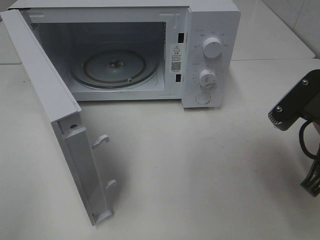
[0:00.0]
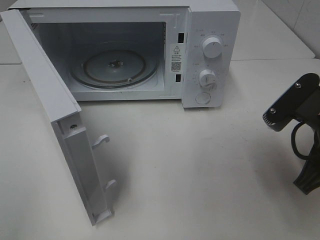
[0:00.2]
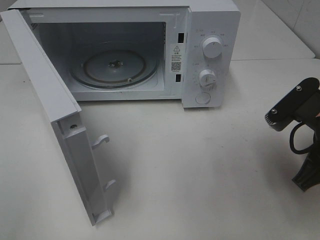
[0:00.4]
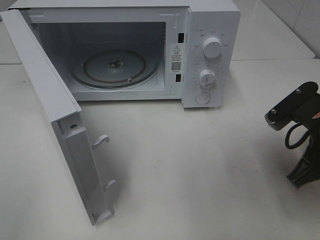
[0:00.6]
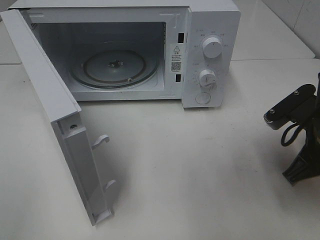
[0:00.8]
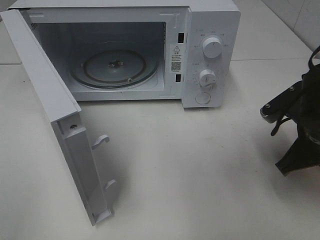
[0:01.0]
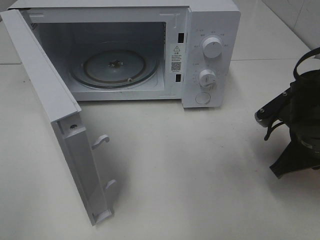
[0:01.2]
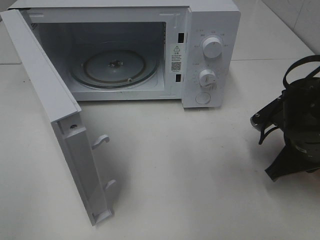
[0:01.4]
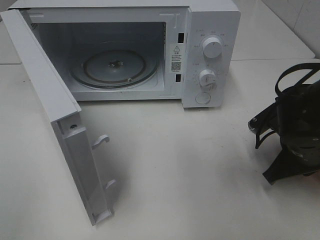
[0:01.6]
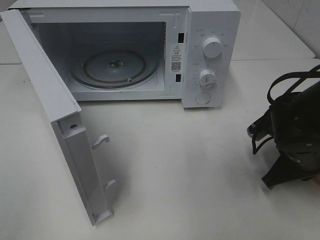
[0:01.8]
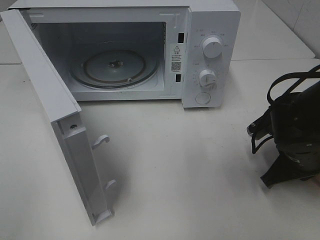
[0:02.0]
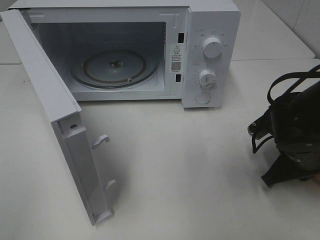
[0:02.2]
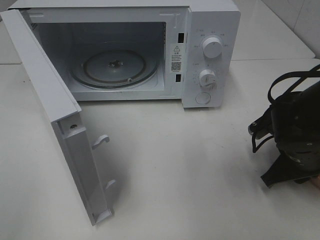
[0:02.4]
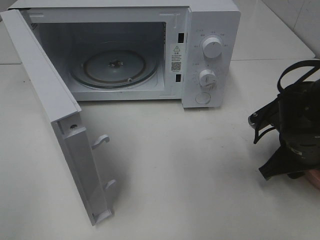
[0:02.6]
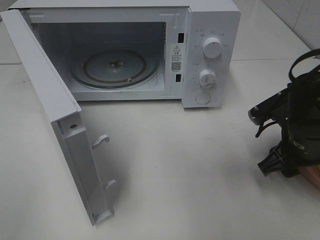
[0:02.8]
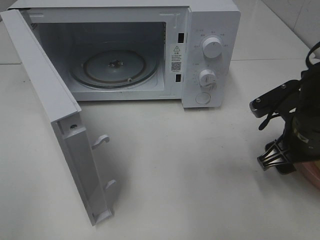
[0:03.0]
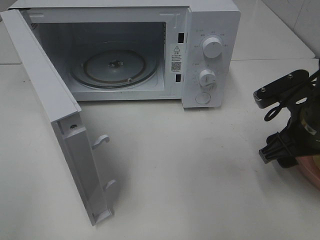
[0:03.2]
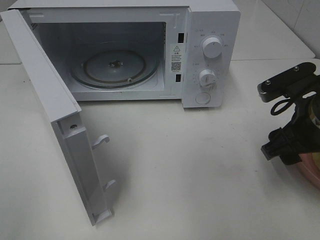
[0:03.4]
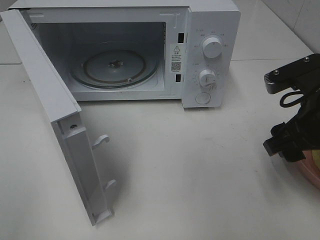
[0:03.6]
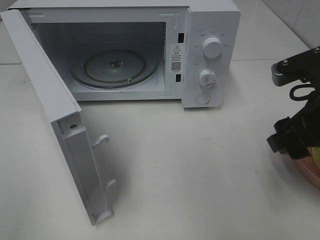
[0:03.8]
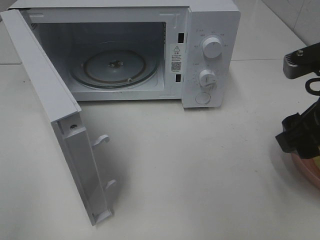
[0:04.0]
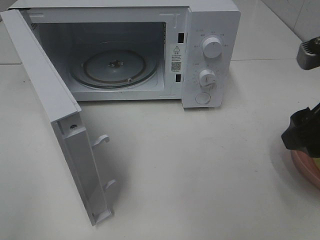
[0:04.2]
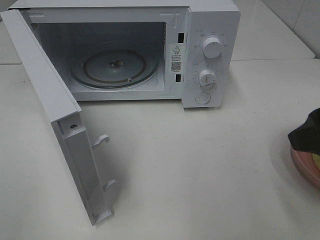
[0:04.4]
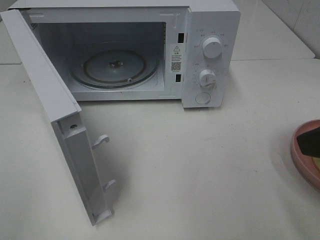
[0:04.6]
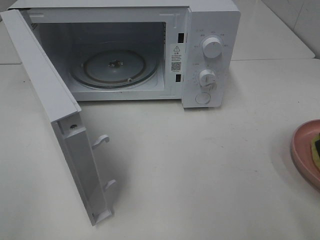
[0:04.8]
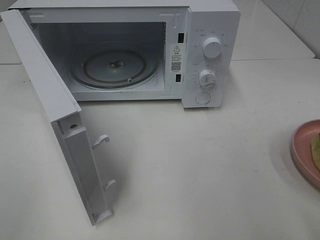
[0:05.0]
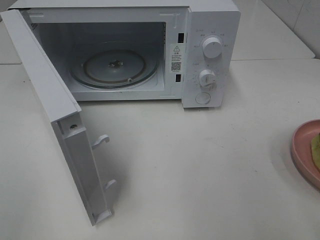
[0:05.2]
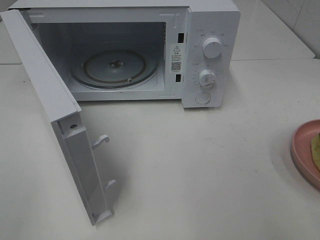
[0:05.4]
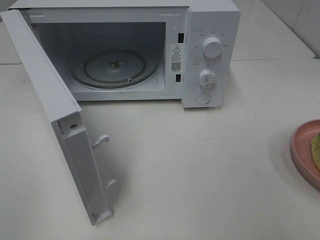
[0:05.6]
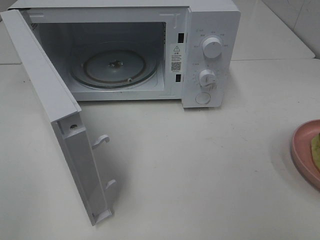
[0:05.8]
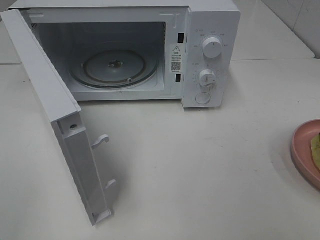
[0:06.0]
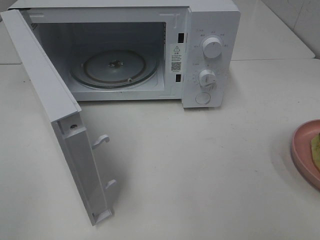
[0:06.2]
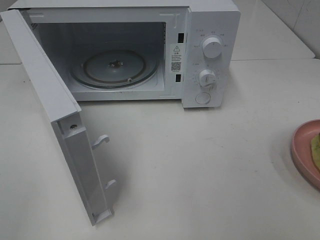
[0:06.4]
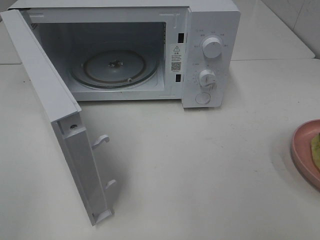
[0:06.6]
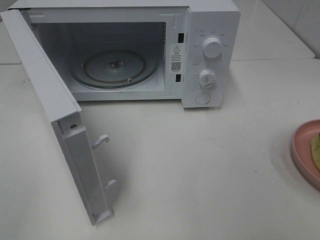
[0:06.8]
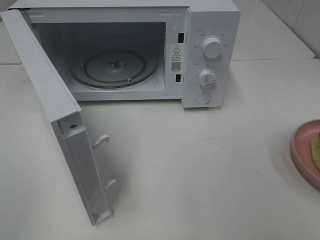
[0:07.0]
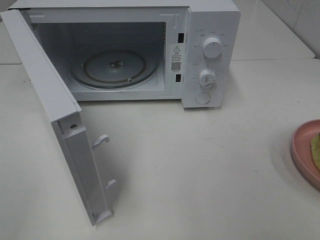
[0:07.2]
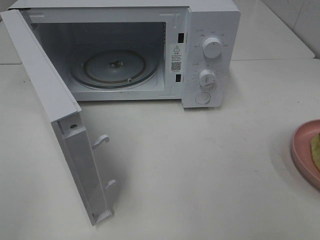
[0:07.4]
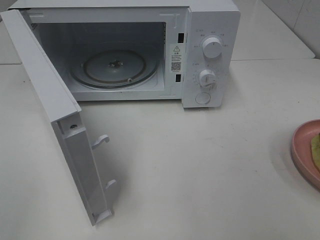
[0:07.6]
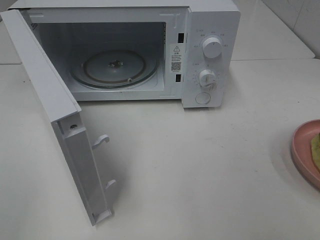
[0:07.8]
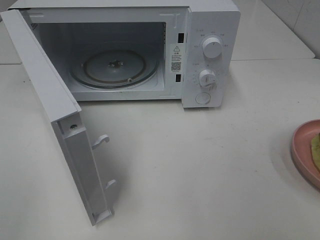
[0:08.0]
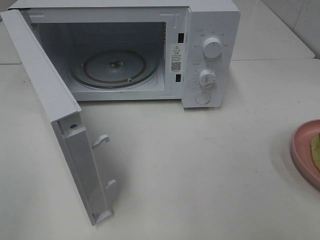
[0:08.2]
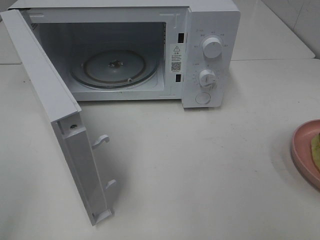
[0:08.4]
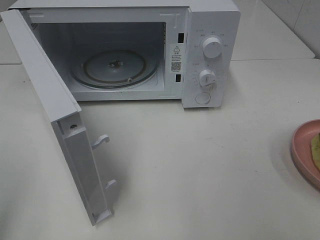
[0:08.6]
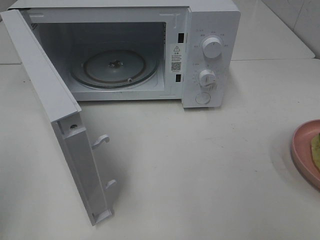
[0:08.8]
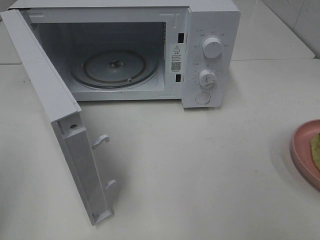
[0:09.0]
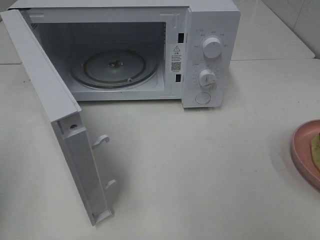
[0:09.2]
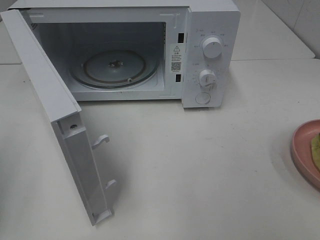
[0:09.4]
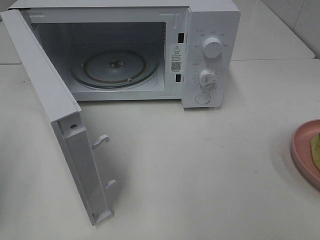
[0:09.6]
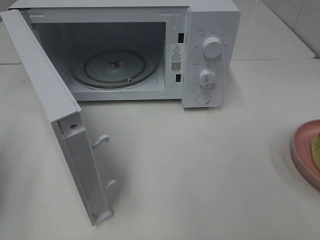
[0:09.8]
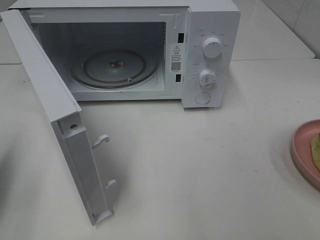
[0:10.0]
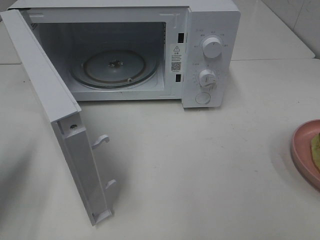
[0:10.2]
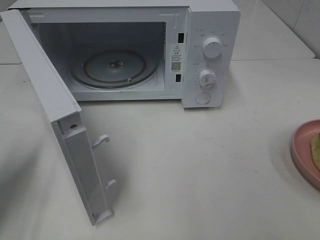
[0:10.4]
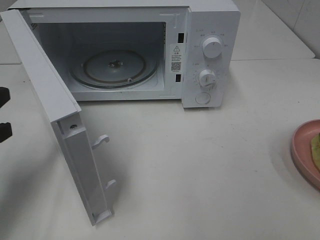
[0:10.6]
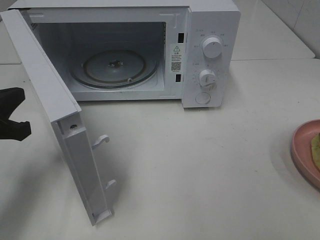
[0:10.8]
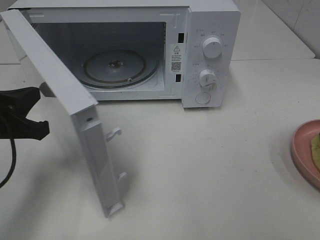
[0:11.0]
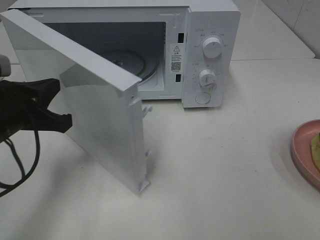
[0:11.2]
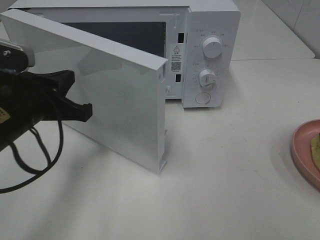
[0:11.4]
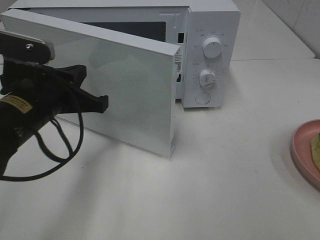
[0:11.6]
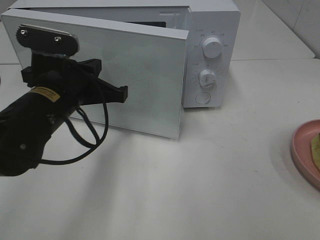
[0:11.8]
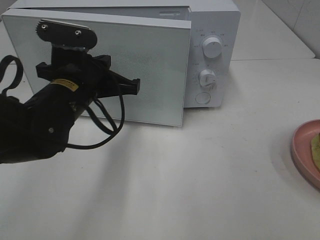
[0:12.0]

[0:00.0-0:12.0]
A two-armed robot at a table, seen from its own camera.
Task of the whole recording: Heat Sandwich.
Step, 0:00.0 to 0:03.6: Right hand: place the plate on the table.
0:00.0 to 0:01.6: The right gripper heads downward and forward, covering approximately 15 cm.
0:01.6 to 0:03.0: The right gripper opens.
0:03.0 to 0:04.4: The right gripper shifts approximately 15 cm upward and backward.
0:04.4 to 0:06.0: The right gripper heads backward and to the right, covering roughly 15 cm.
0:06.0 to 0:07.6: Neither gripper changes place.
0:09.0 to 0:10.4: The left gripper heads forward and downward, covering approximately 15 cm.
0:10.4 to 0:12.0: The left gripper heads to the right and forward, covering about 20 cm.

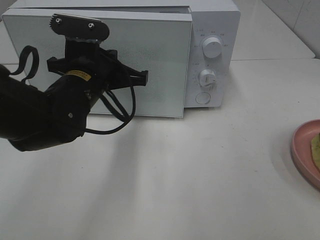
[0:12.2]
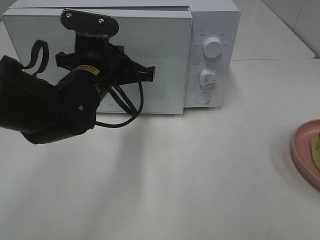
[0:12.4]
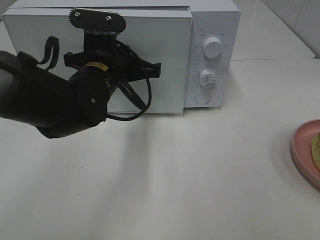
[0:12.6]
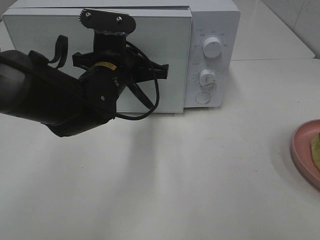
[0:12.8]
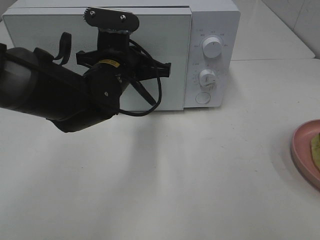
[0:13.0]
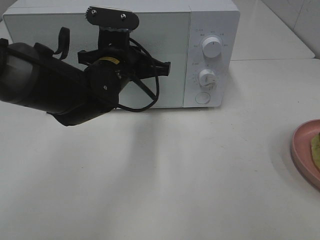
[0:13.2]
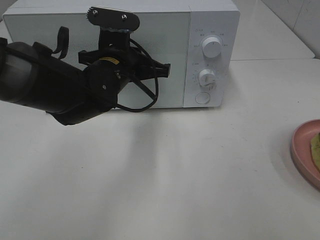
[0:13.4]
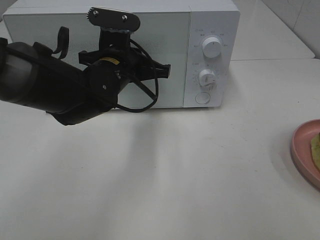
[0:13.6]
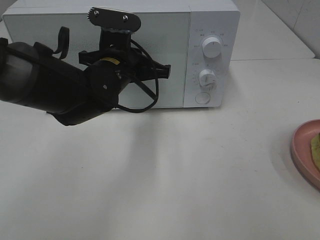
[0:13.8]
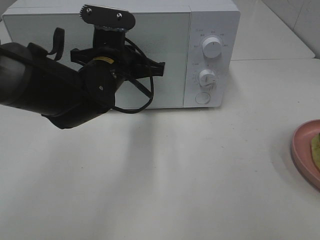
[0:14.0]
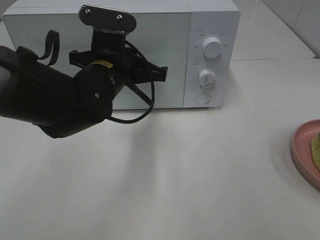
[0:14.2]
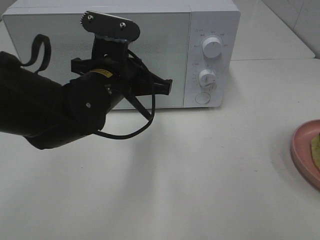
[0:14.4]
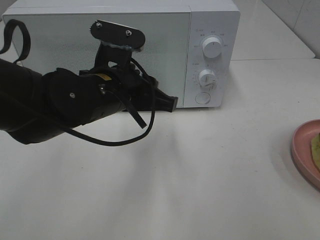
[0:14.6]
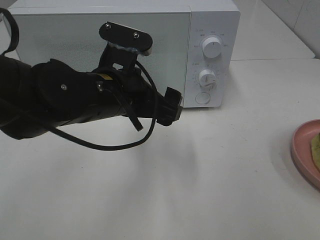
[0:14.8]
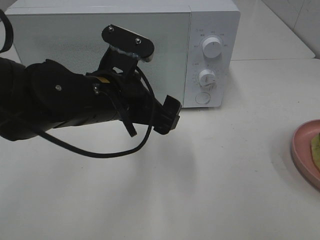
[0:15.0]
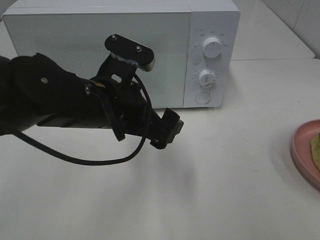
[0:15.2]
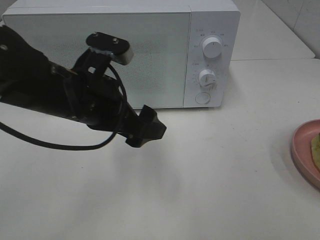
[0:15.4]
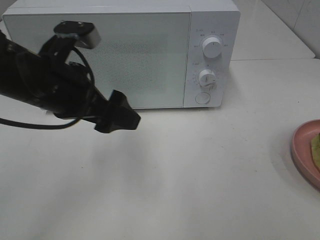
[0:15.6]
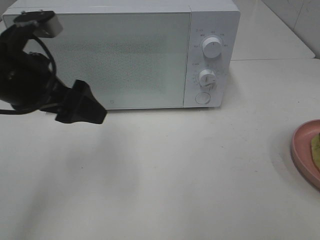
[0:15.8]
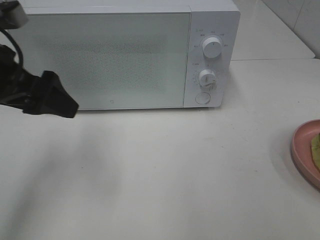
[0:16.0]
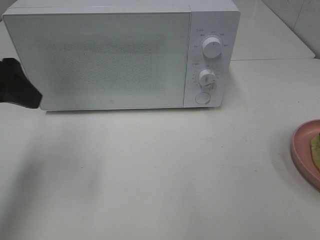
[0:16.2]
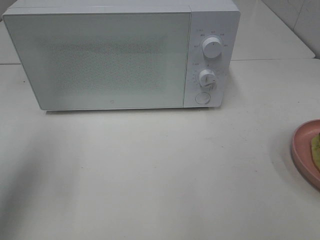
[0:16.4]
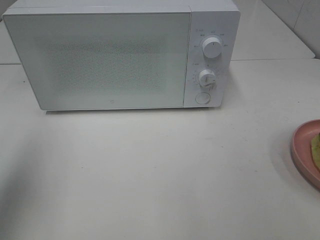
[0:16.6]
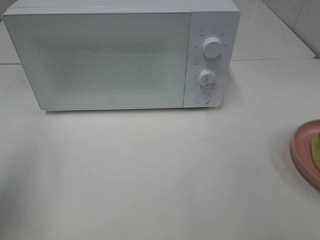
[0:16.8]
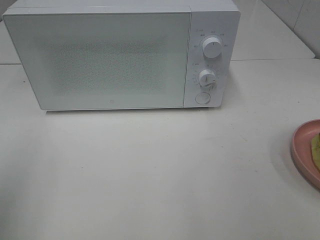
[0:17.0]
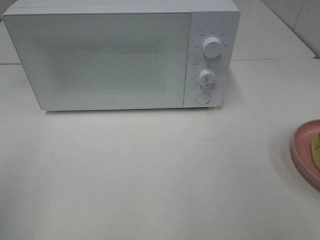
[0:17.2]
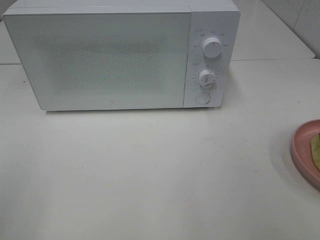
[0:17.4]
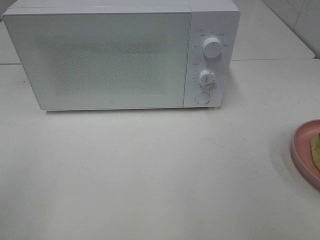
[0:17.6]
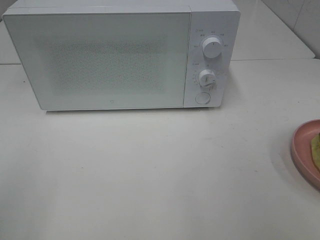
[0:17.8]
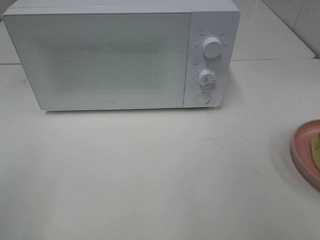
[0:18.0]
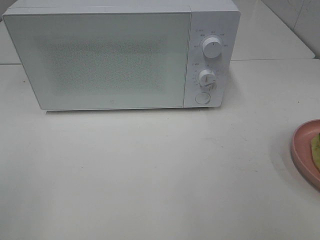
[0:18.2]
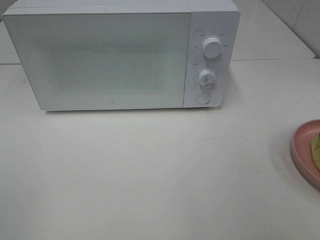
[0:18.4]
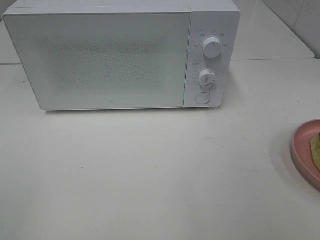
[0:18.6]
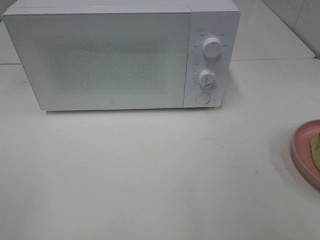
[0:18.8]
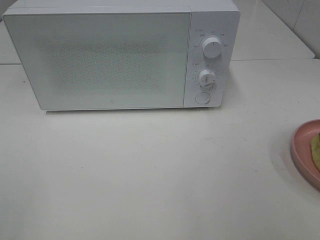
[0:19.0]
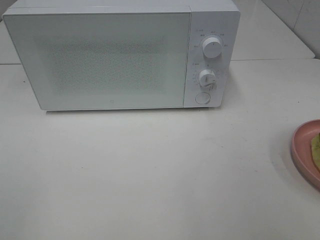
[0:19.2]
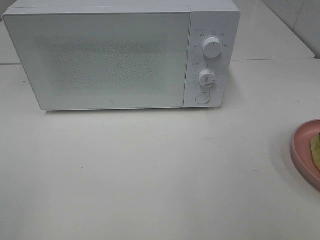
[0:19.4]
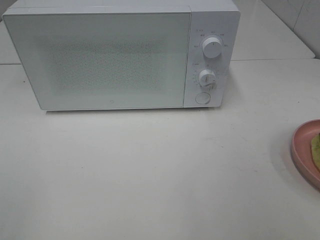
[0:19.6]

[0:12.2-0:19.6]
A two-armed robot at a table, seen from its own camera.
Task of the whole recording: Heat Sandwich.
Step, 0:12.2 to 0:14.6: Left hand: close the microwave door.
0:12.2 to 0:13.6: The left gripper shifts by about 5 cm.
0:13.6 to 0:15.2: The left gripper is displaced backward by approximately 10 cm, and opens.
0:15.2 to 0:16.6: The left gripper moves to the left and upward, approximately 25 cm.
0:16.6 to 0:18.2: The left gripper travels backward by approximately 15 cm.
